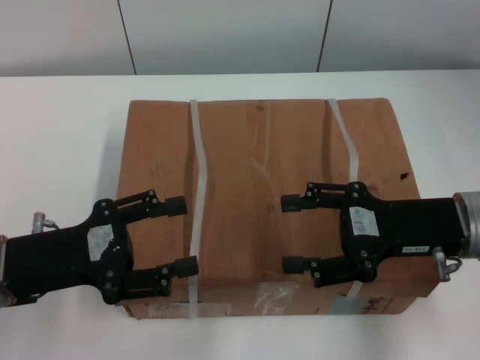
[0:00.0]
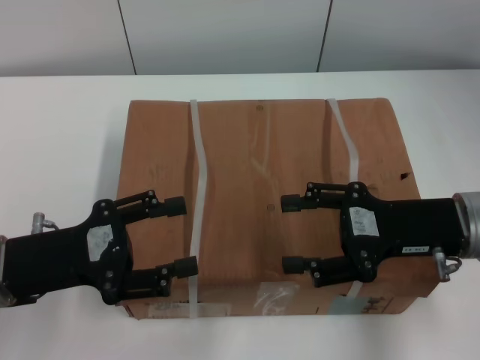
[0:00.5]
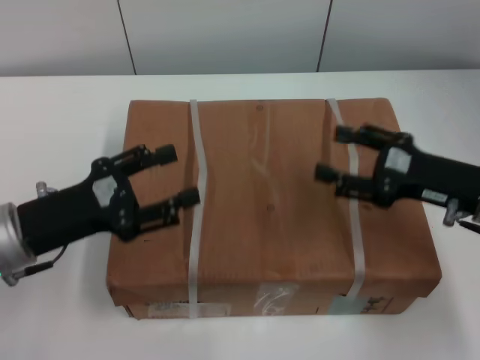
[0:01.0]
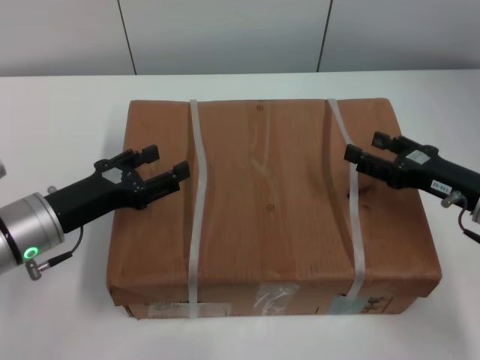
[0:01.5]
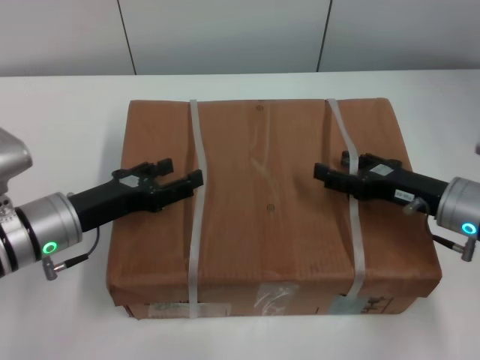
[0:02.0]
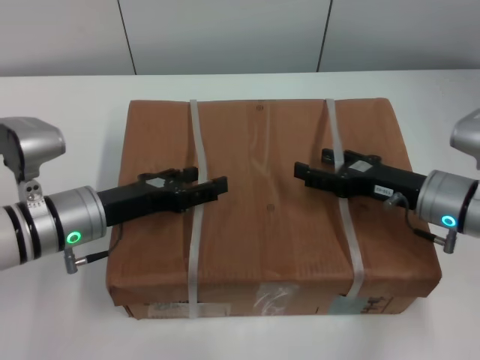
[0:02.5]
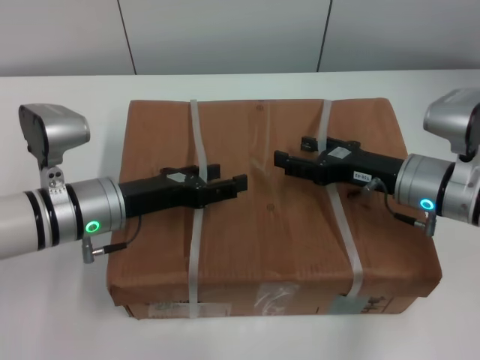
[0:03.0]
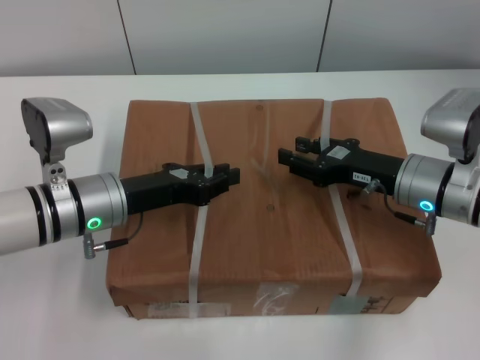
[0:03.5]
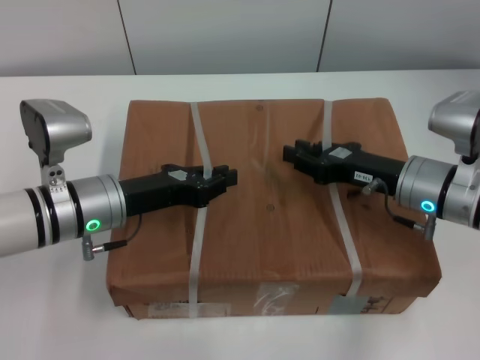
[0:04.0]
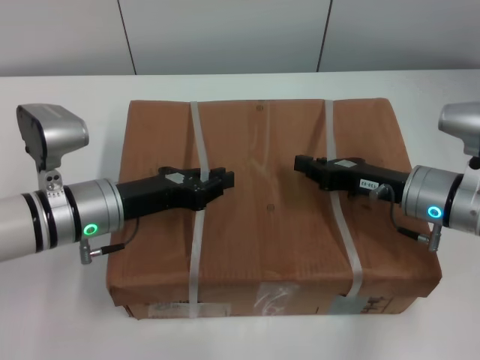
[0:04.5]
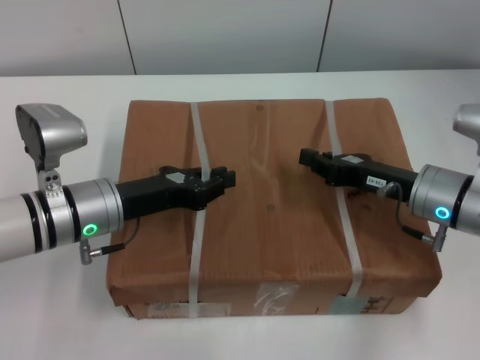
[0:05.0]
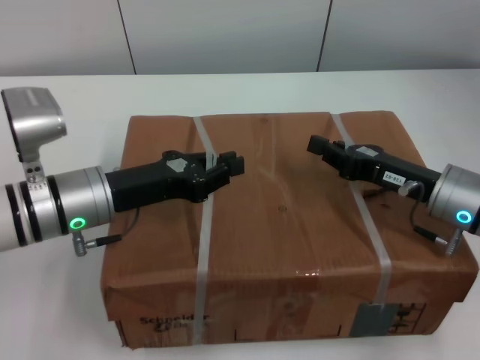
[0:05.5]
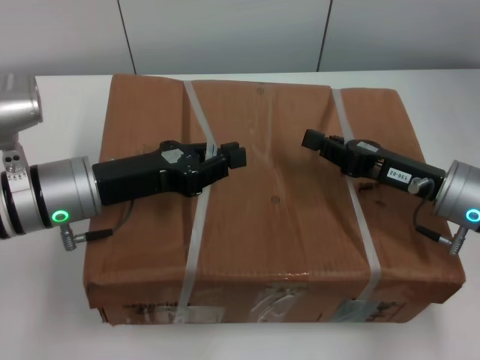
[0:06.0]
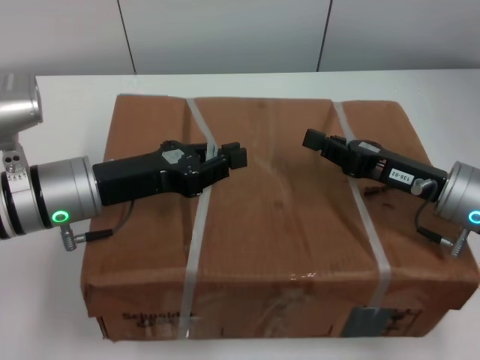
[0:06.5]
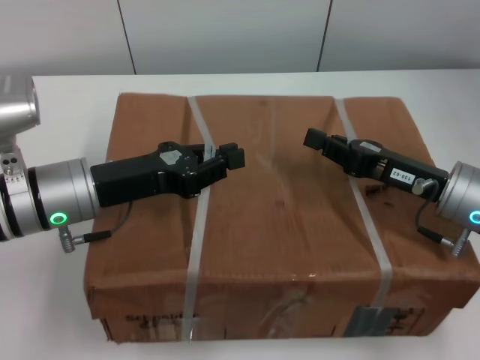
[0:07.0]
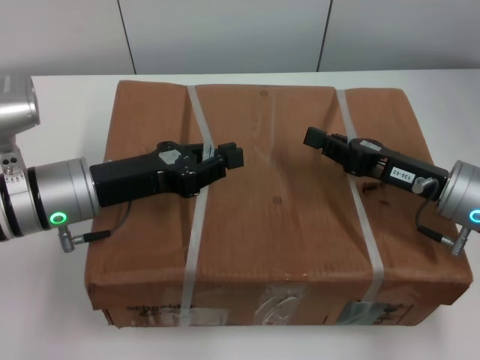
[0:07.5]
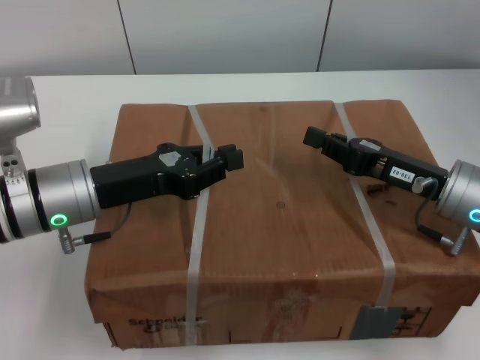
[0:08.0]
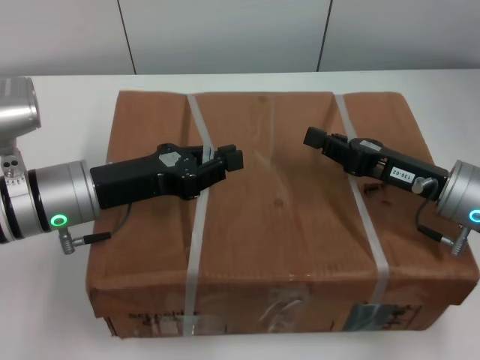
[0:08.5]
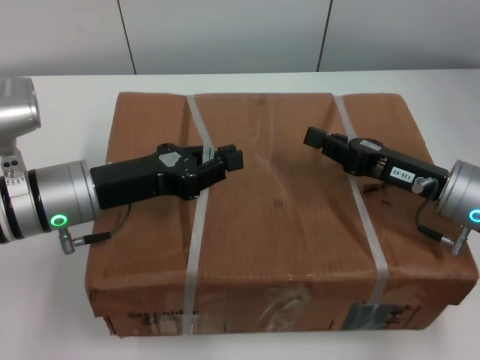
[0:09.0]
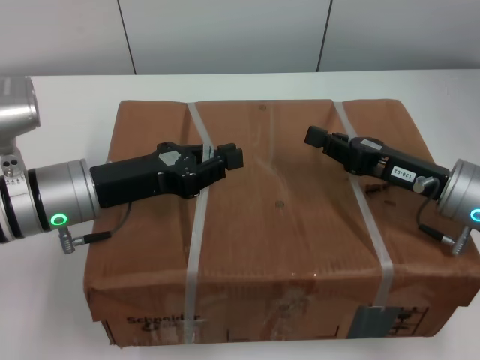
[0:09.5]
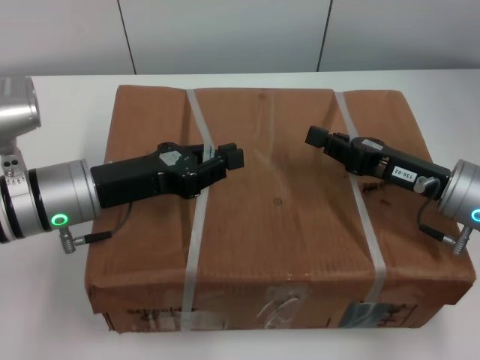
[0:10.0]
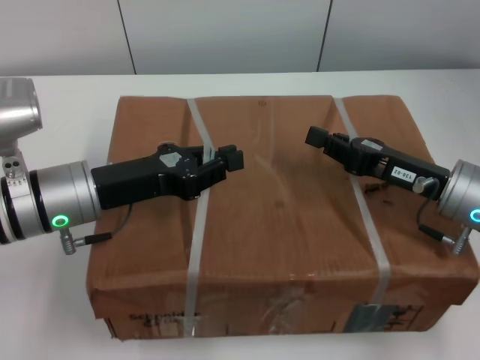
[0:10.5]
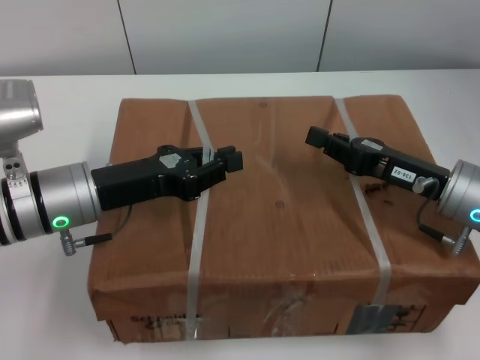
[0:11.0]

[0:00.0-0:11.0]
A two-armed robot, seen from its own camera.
Task of the whole recording: pick up the box from the table with both arms.
Step, 0:01.0 to 0:04.0: Grasp the bandage with left gripper.
Step, 0:01.0 to 0:04.0: Grasp the bandage with right gripper.
Step, 0:04.5 to 0:06.0: Lift the box with left gripper.
Step, 0:04.5 to 0:06.0: Lift the box with right gripper.
0:00.0 to 0:02.0: The left gripper moves forward, approximately 5 cm. The right gripper goes approximately 5 cm downward.
0:02.0 to 0:03.5: The right gripper moves about 5 cm. The left gripper ends up about 5 cm from where it was, and closes up.
0:03.5 to 0:05.5: The right gripper closes up. The left gripper closes.
0:07.5 to 0:11.0: Neither gripper changes place.

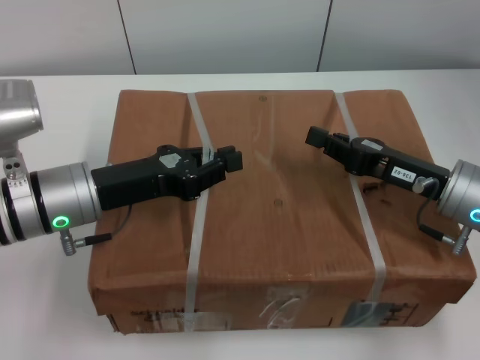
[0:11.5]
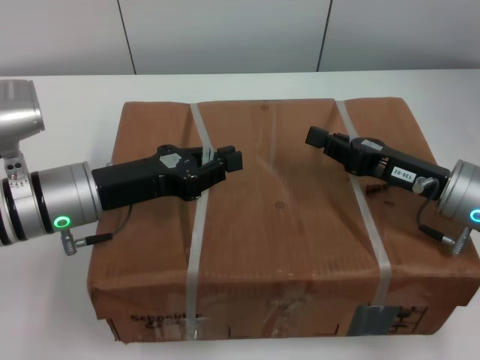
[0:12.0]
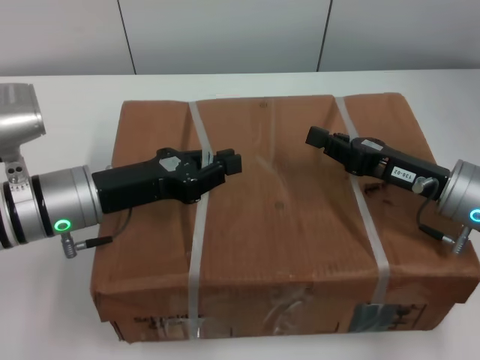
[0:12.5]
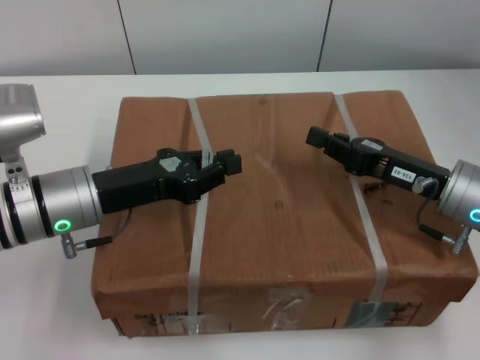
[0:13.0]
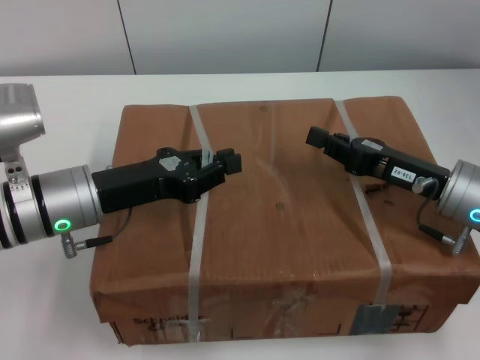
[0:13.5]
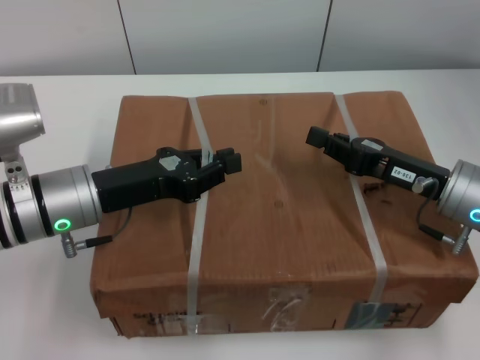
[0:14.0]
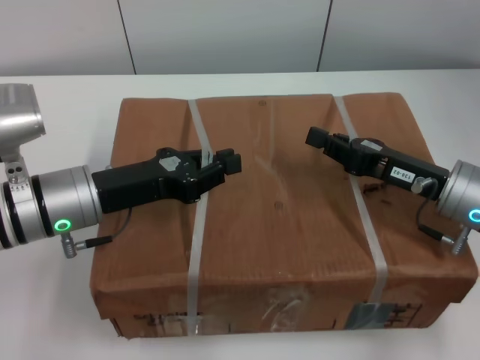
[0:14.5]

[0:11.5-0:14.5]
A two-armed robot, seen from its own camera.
Task of the whole recording: pick up the box from the table with both arms.
0:11.5 to 0:14.5: The two grippers keep their place.
